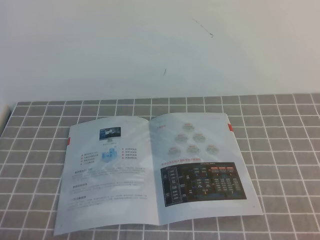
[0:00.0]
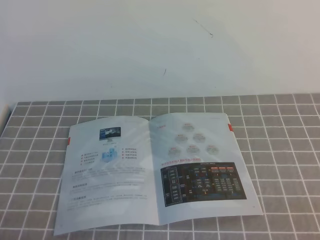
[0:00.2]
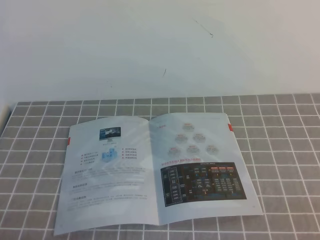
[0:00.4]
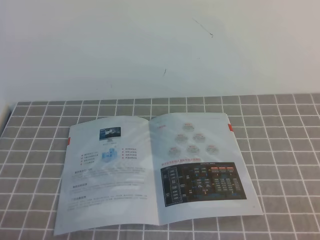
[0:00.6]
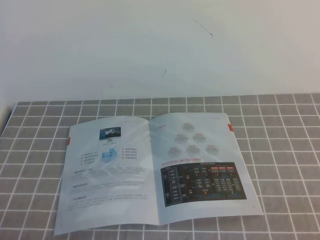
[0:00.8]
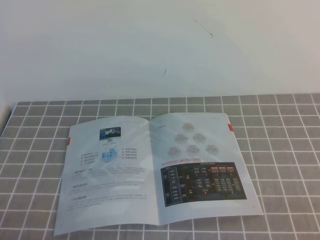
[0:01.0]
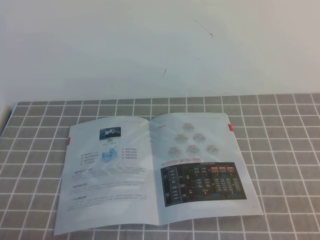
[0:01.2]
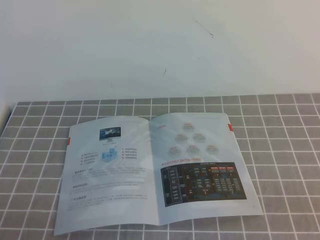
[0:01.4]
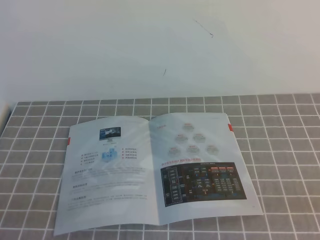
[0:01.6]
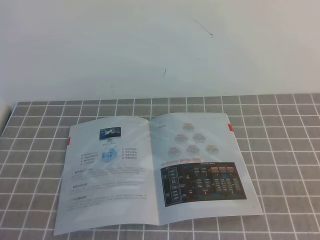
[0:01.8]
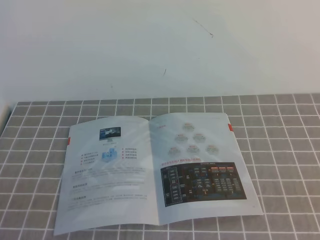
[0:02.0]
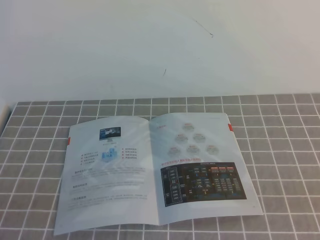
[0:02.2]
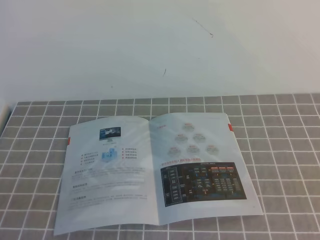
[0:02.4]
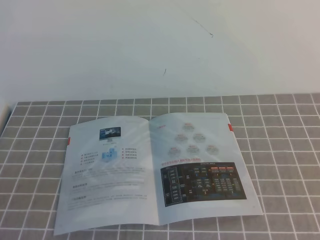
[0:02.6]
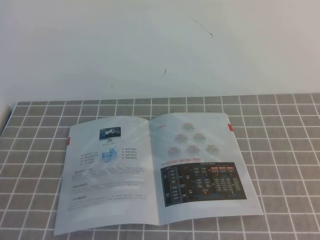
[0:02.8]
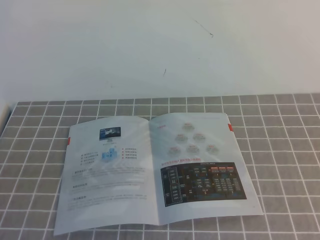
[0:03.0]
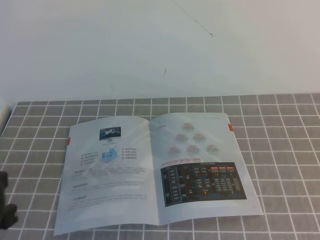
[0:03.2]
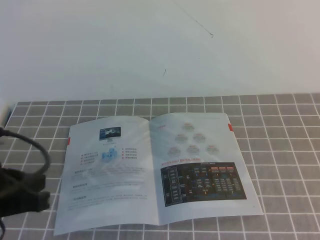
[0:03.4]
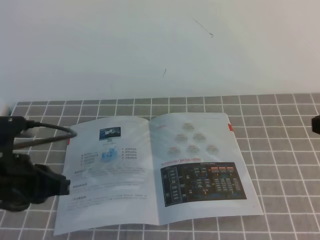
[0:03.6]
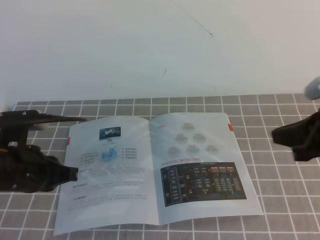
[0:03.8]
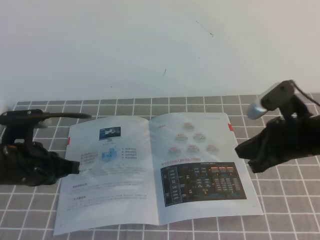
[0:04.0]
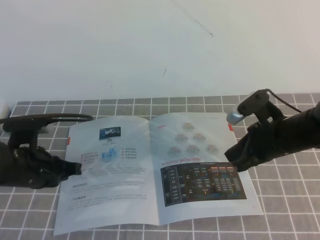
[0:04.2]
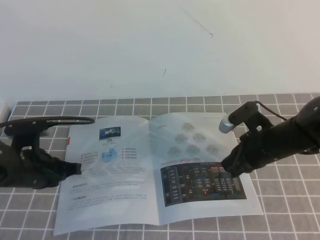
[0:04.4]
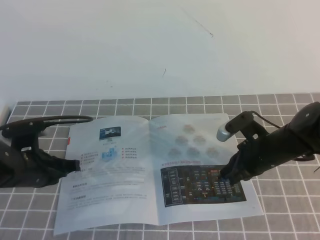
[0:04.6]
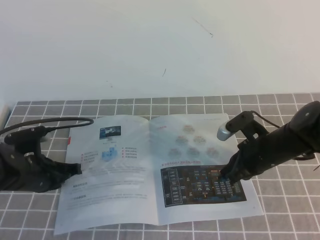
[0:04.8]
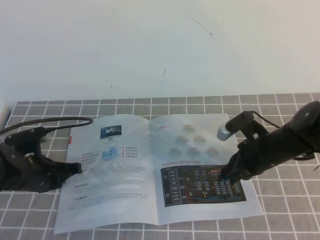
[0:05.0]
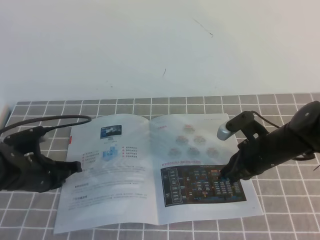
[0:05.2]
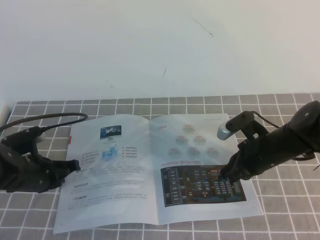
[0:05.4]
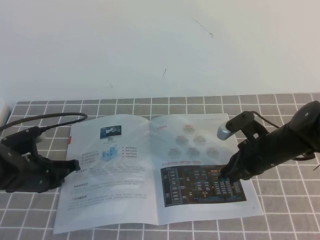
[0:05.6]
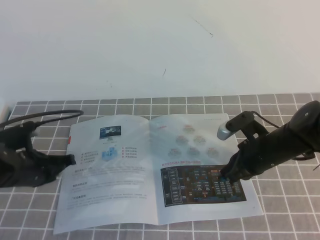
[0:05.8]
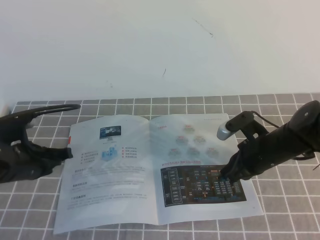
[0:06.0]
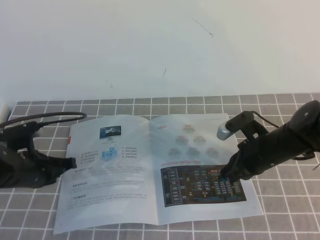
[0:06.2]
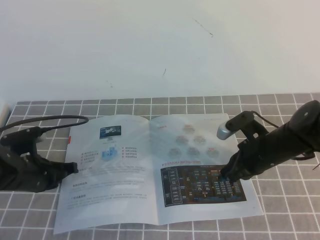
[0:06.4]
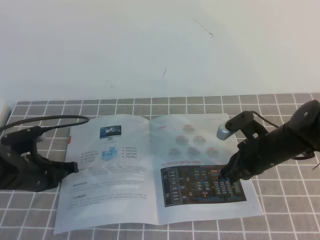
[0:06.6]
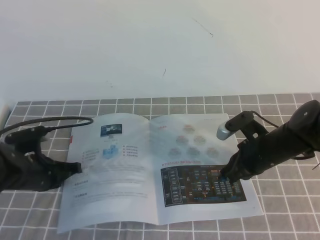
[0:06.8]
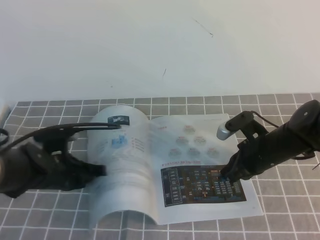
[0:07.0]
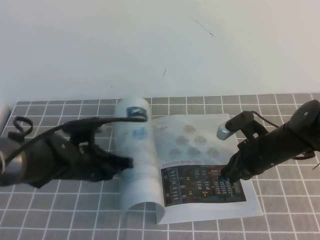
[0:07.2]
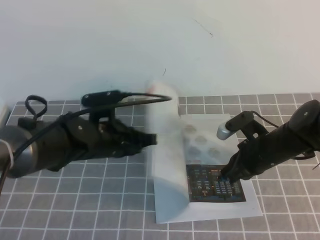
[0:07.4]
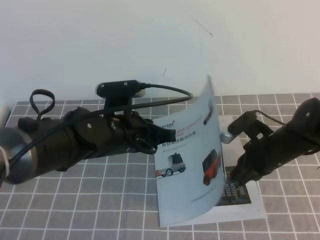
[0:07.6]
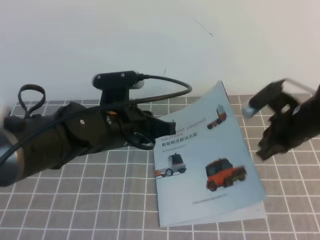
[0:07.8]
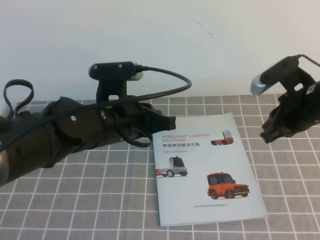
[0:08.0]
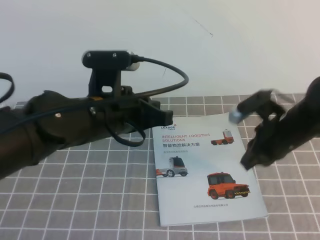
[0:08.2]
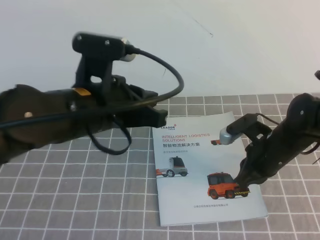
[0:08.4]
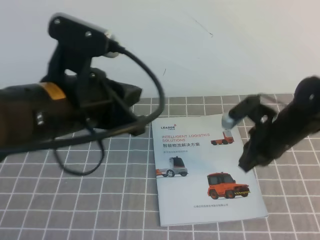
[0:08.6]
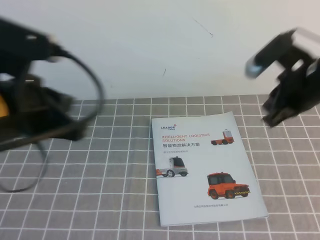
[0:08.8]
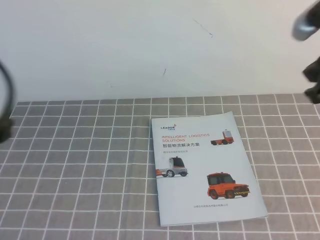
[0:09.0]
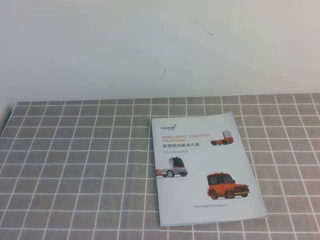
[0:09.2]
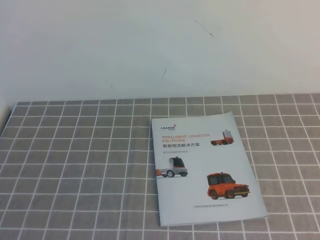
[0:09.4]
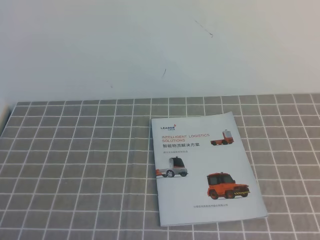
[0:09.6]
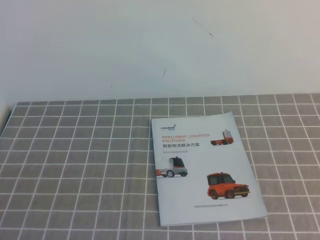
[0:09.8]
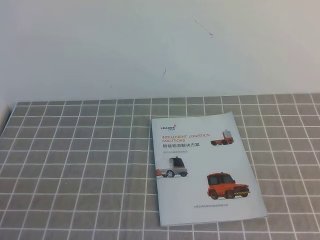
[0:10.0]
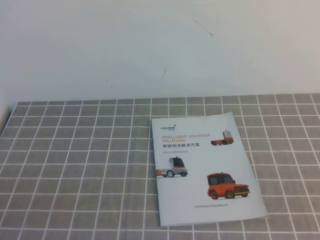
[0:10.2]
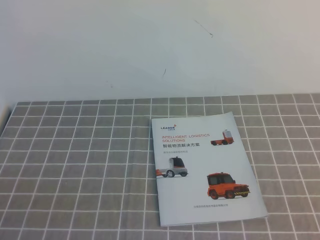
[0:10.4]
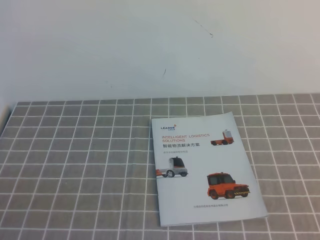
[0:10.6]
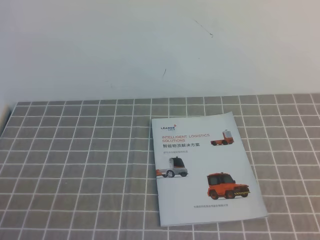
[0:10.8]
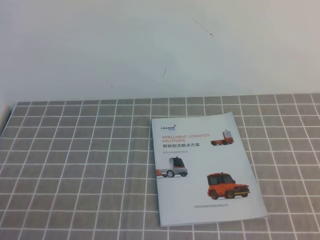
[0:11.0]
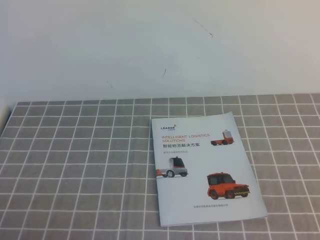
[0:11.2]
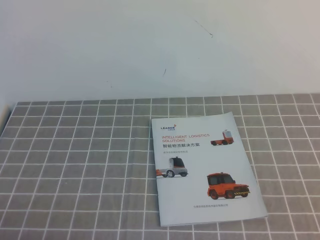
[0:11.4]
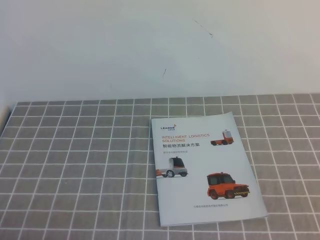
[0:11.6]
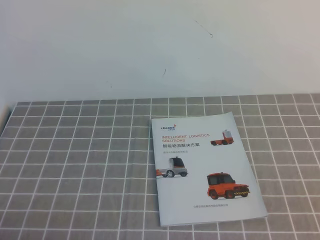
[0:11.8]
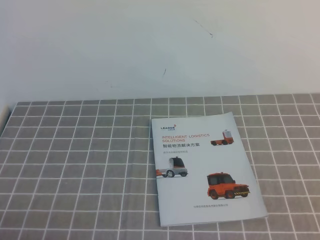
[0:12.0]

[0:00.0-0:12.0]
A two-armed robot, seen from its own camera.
Task of the whole recording: on the grey tablecloth, hold the book with one hand and close it with the other.
0:03.0 to 0:04.4: The left gripper heads forward and downward, covering some 25 cm; the right gripper travels forward, downward and to the left by approximately 35 cm.
0:04.4 to 0:06.0: The grippers stay close to where they were, moving slightly.
0:06.0 to 0:07.6: The left gripper goes approximately 20 cm to the right and upward.
0:07.6 to 0:09.0: The left gripper goes approximately 25 cm upward, backward and to the left. The right gripper swings up and down, some 20 cm each way, with 2 reversals.
0:09.0 to 0:10.4: The left gripper moves backward and downward, roughly 20 cm. The right gripper travels backward by some 25 cm.
